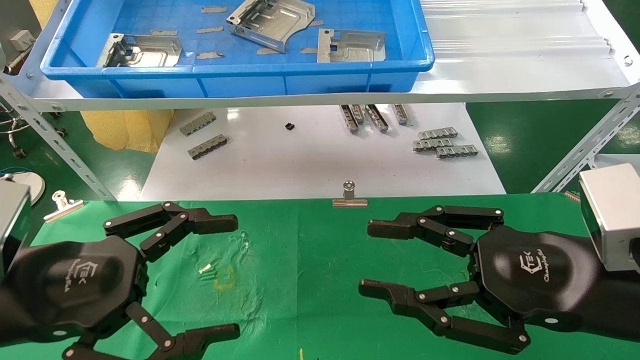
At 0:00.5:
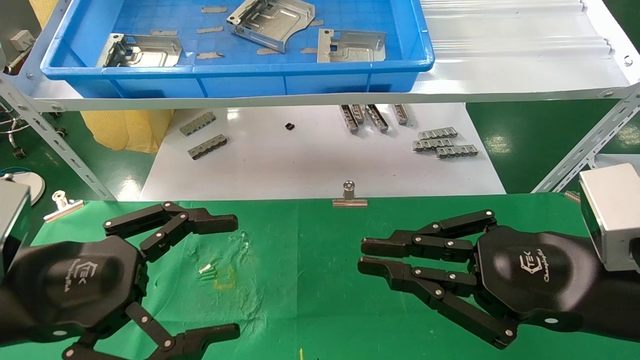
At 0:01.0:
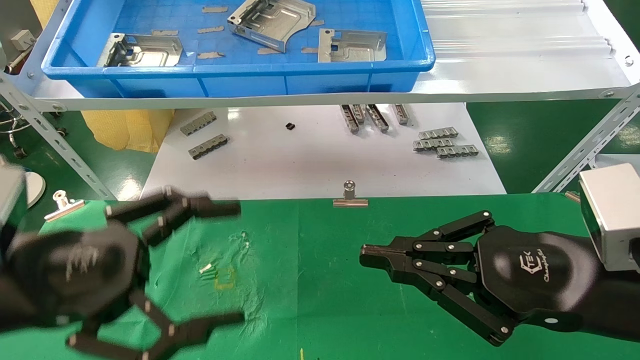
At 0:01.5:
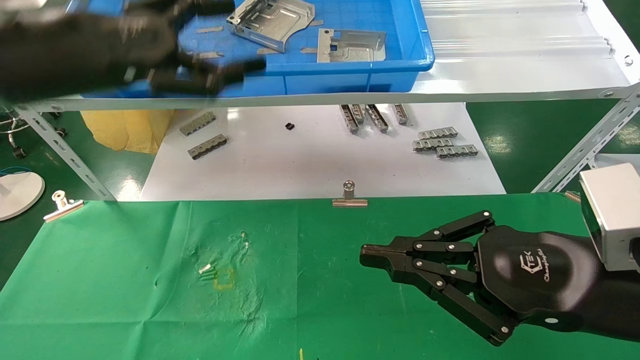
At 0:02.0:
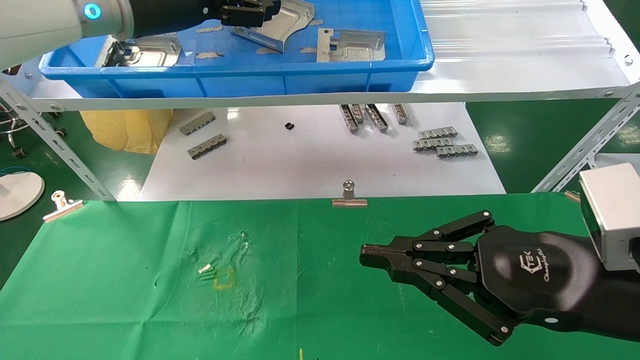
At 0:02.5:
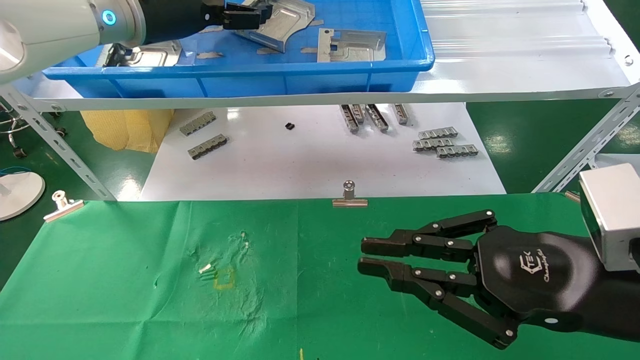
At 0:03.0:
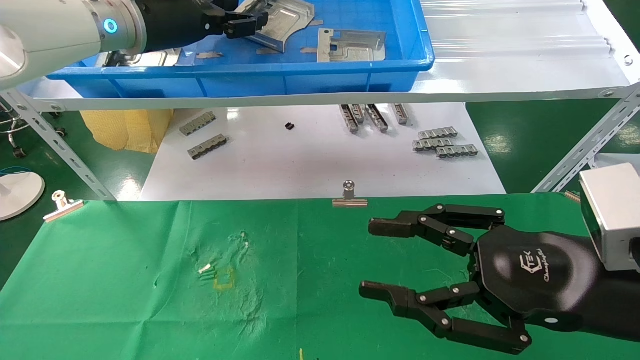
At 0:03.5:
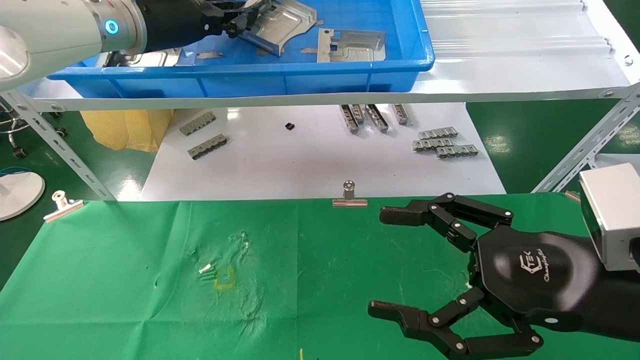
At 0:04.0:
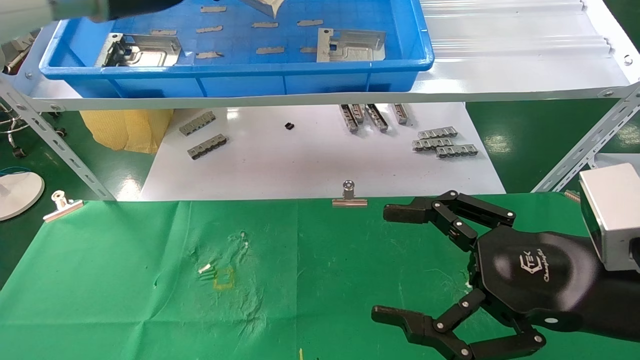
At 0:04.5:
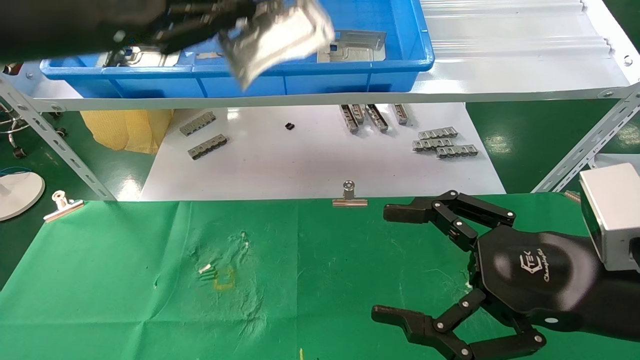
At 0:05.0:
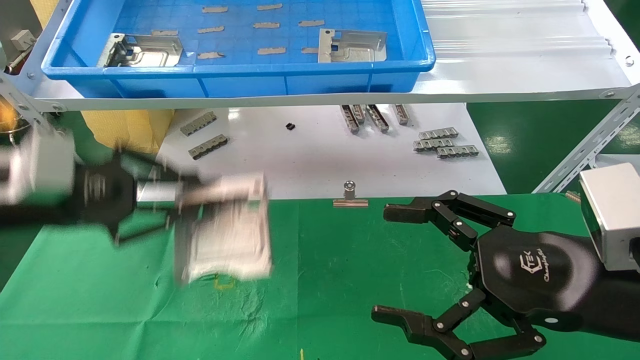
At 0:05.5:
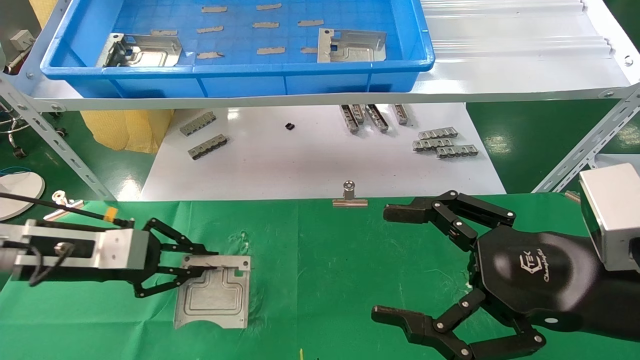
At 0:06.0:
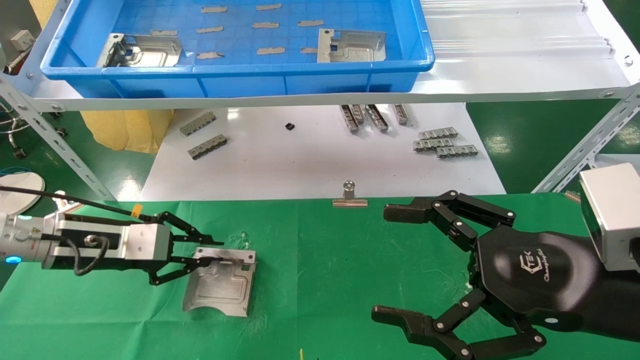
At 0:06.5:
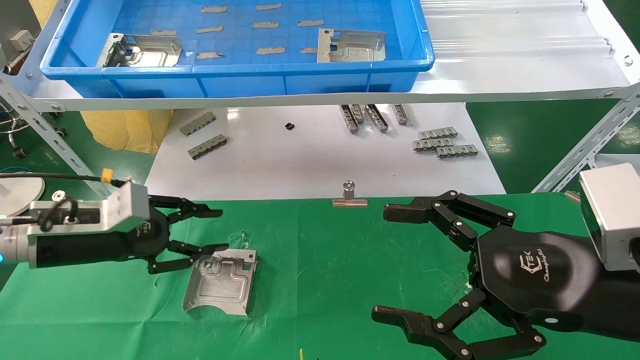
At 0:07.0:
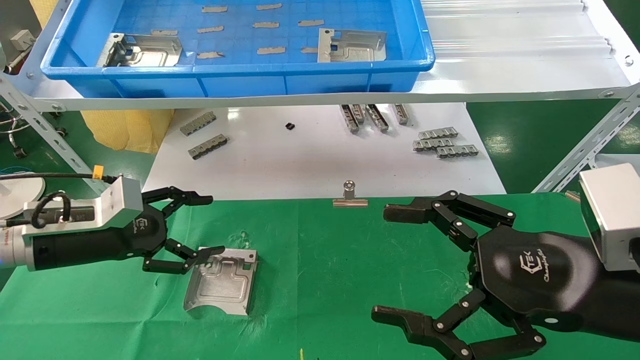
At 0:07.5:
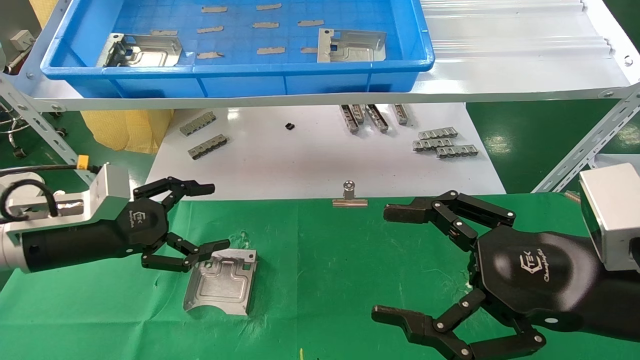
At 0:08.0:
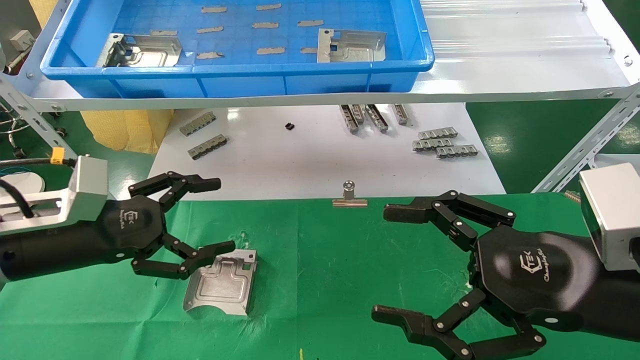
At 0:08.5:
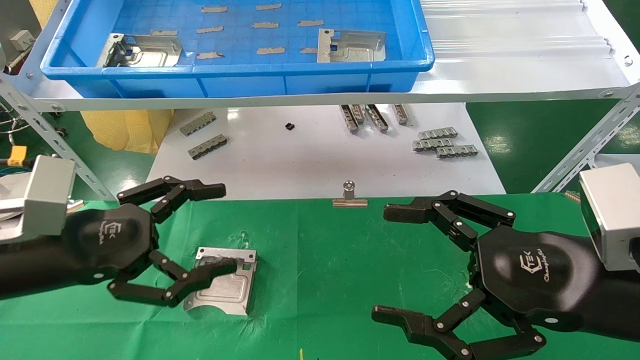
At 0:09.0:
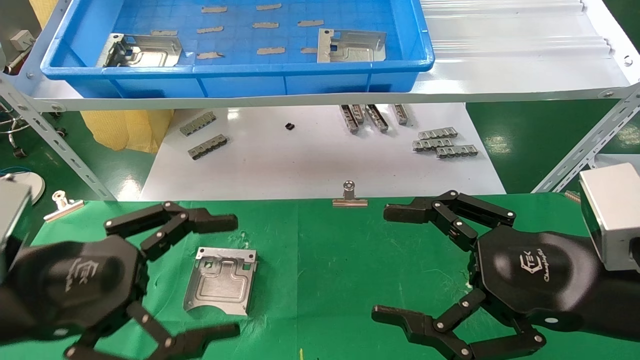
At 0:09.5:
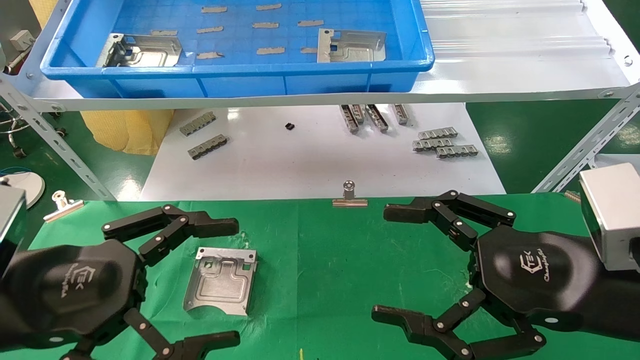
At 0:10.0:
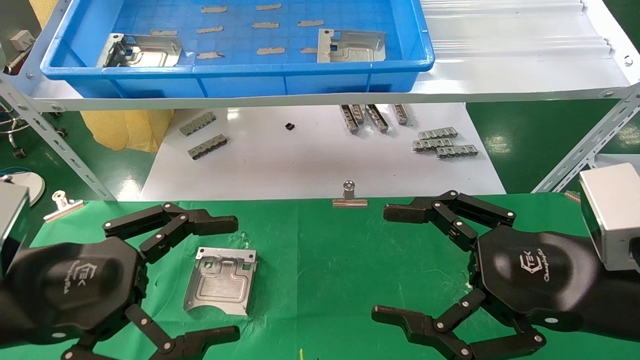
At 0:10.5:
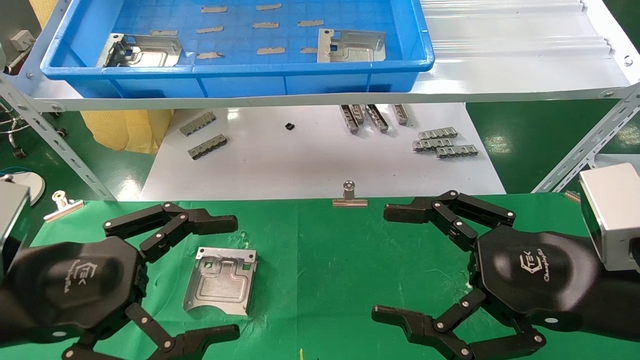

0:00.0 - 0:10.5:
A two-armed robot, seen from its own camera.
Task of the whole recording: use the mechanical arm to pick up the parts and place them on the table.
Step, 0:01.5 - 0:03.5: Pick up the hard drive bracket from the feeding area.
Step, 0:04.0 - 0:06.0: Place the hard drive bracket into the box.
0:00.0 - 0:02.0: The left gripper shifts approximately 30 cm upward and forward; the right gripper closes its fingers.
0:02.0 - 0:04.0: The left gripper closes up, while the right gripper opens up.
0:04.0 - 0:06.5: The left gripper heads downward, covering approximately 30 cm.
0:06.5 - 0:08.5: The left gripper travels backward by approximately 10 cm, and opens.
0:08.5 - 0:10.5: The left gripper heads backward, covering about 5 cm.
